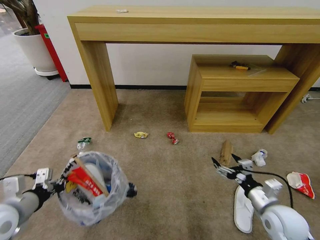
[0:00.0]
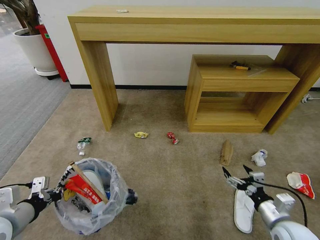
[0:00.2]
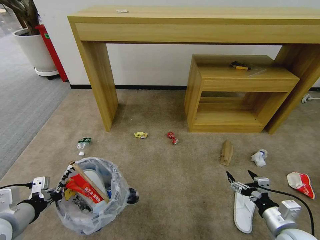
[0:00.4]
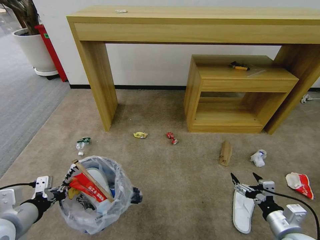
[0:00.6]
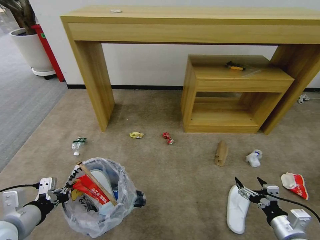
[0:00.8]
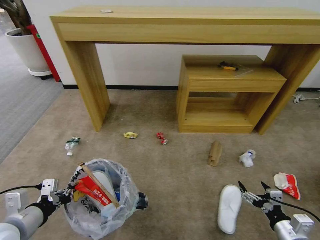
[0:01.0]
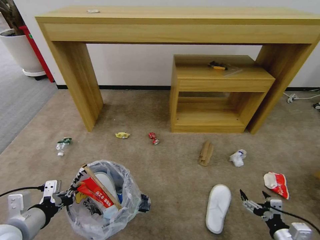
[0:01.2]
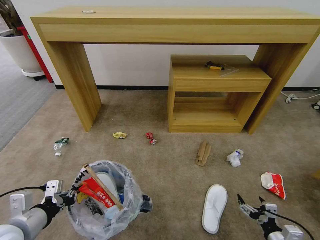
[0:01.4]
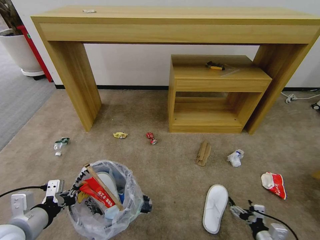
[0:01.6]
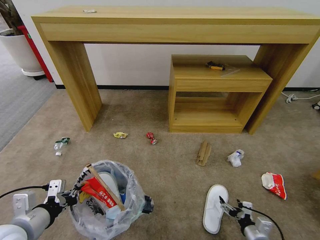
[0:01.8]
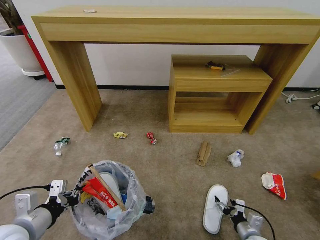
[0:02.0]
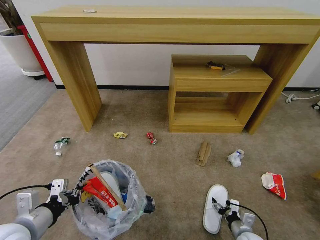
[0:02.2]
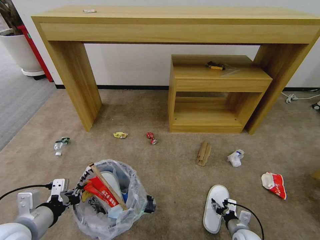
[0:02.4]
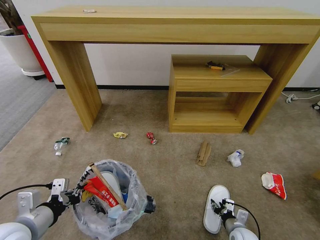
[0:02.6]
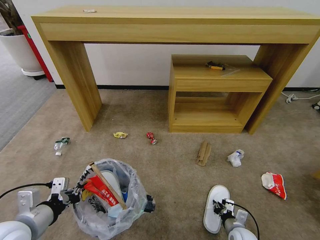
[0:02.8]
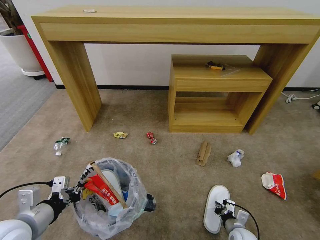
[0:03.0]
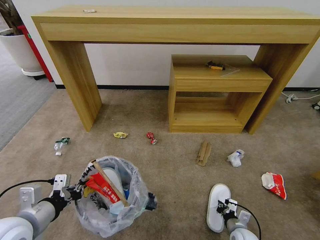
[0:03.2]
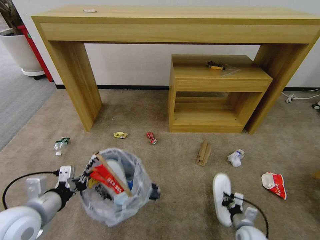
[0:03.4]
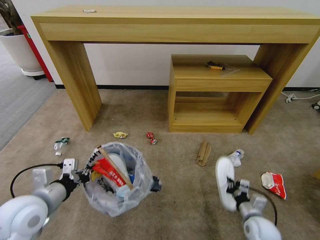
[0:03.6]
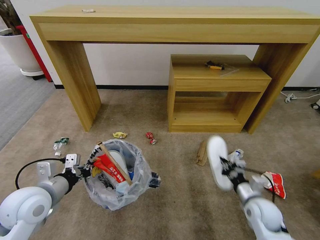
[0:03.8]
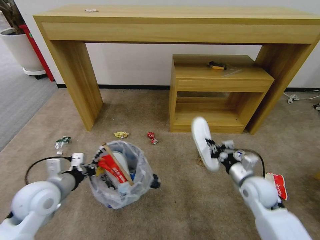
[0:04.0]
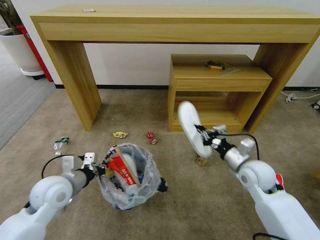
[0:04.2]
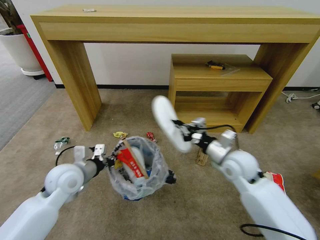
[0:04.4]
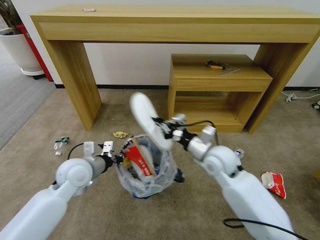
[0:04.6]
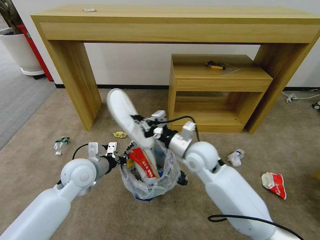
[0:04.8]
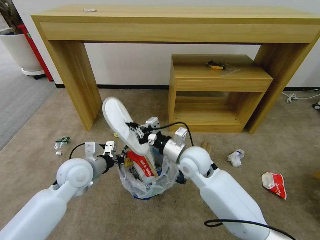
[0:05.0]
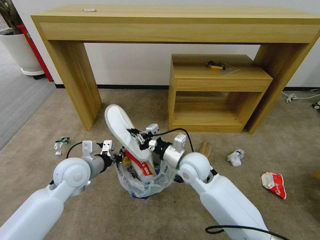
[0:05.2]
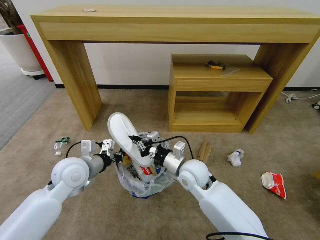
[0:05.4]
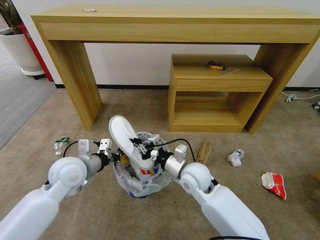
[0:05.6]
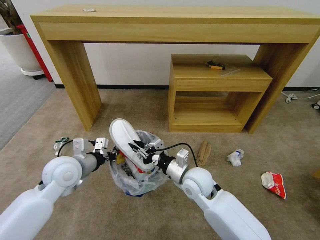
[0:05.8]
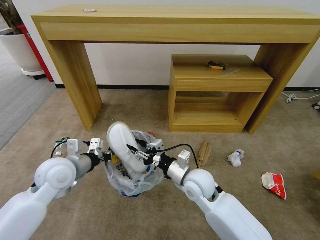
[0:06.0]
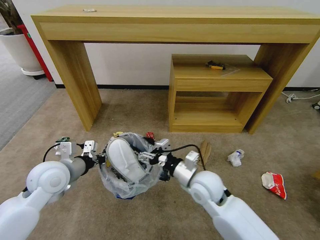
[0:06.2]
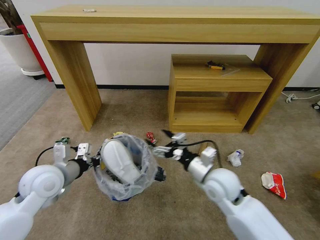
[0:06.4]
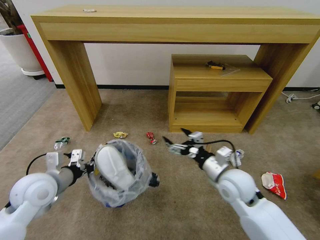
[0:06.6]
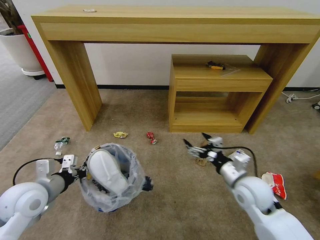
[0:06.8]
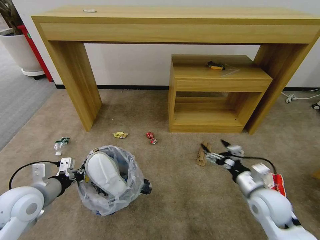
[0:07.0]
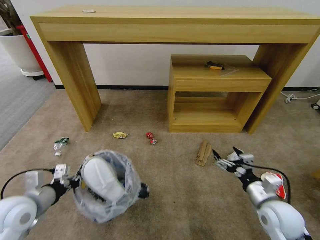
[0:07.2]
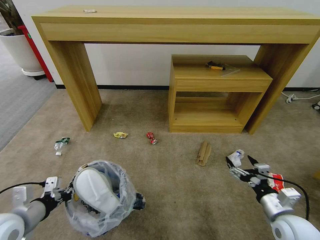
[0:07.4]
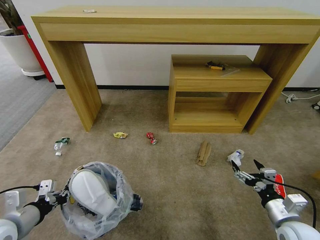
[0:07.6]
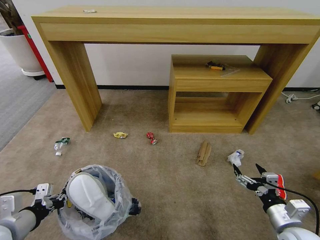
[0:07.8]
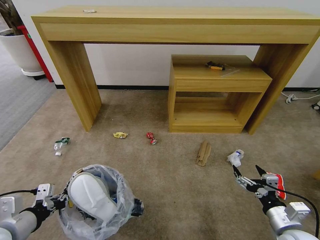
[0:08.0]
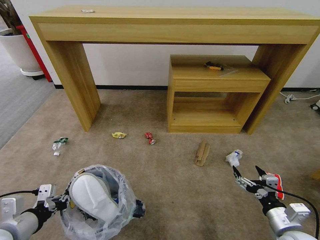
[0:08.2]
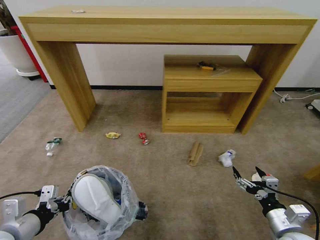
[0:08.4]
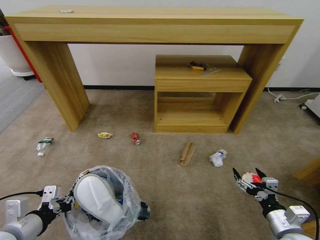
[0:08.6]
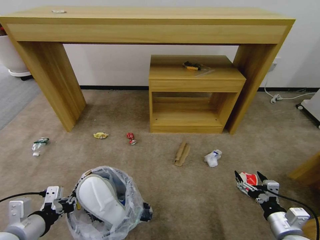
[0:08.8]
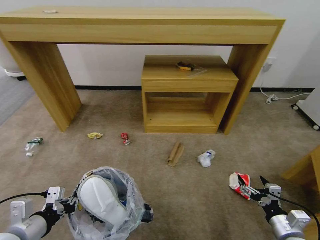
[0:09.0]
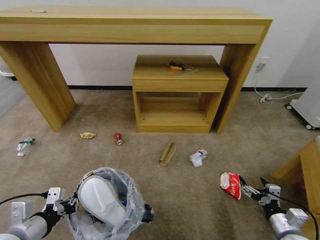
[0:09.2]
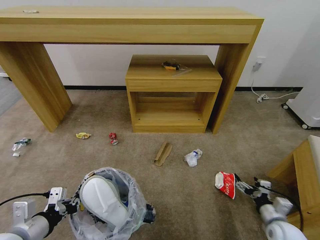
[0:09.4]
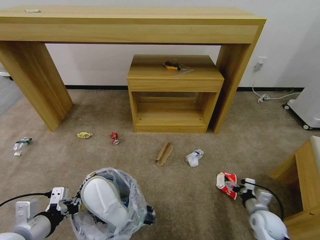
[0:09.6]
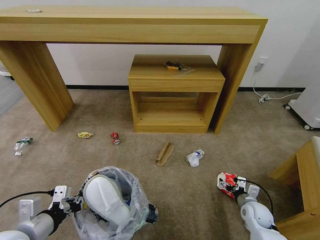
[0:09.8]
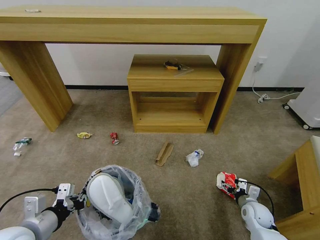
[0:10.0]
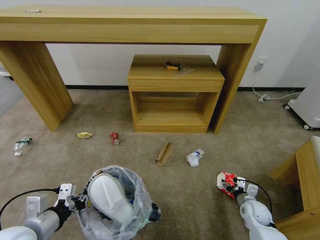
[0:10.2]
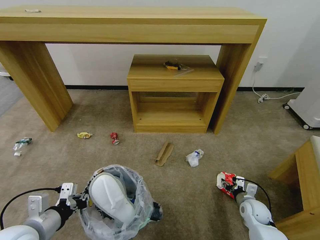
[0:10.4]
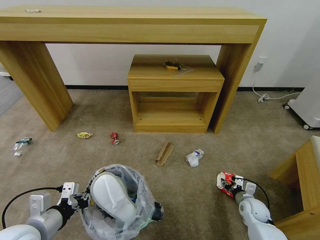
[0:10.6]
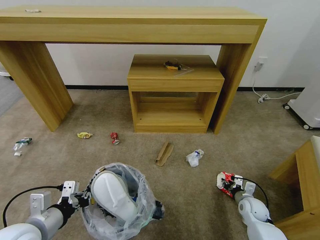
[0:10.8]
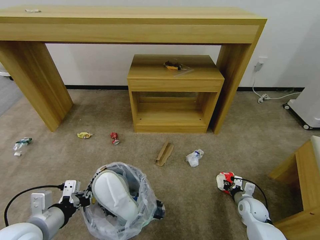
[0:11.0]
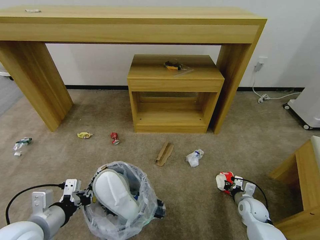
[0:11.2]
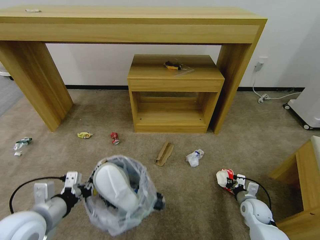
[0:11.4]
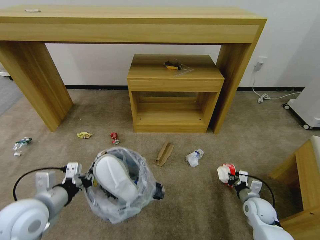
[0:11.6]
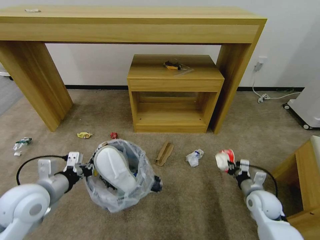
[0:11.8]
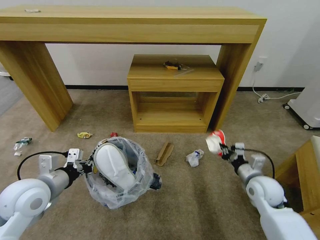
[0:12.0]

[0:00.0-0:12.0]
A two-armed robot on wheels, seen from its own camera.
Task of the whole recording: Pick up the trash bin and place the garbage on the floor into it.
0:00.0 to 0:01.6: The right gripper shifts some 15 cm downward and backward. Meanwhile the left gripper ends up roughly 5 cm from where it was.
0:01.6 to 0:03.0: The right gripper heads forward, to the left and downward, covering approximately 10 cm, and closes.
0:03.0 to 0:04.4: The right gripper goes approximately 30 cm upward and forward, while the left gripper heads forward, covering about 15 cm.
0:04.4 to 0:06.0: The right gripper shifts some 15 cm to the left, and opens up.
0:06.0 to 0:07.6: The right gripper travels to the right and backward by about 30 cm, and opens up; the left gripper shifts roughly 20 cm backward and to the left.
0:07.6 to 0:09.0: The right gripper changes place by approximately 5 cm. Meanwhile the left gripper shifts by roughly 5 cm.
0:09.0 to 0:10.4: The right gripper goes roughly 20 cm forward and downward, and closes up.
0:10.4 to 0:12.0: The right gripper is displaced upward by approximately 15 cm, and closes; the left gripper moves forward, roughly 10 cm.

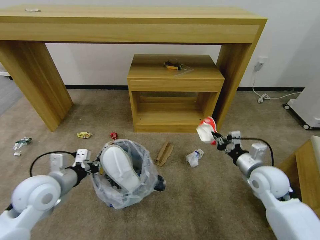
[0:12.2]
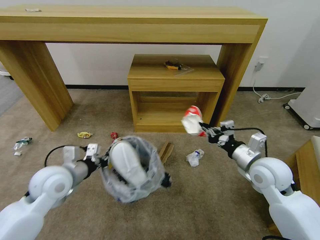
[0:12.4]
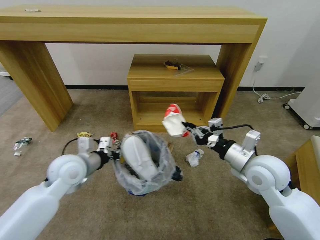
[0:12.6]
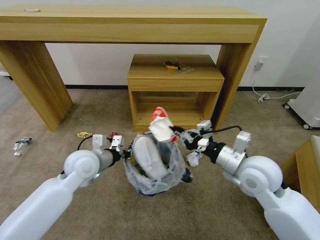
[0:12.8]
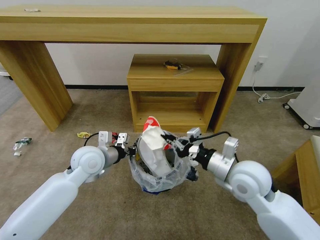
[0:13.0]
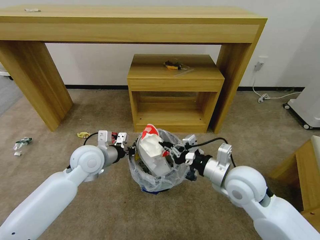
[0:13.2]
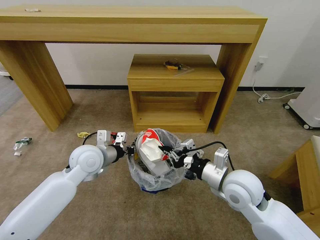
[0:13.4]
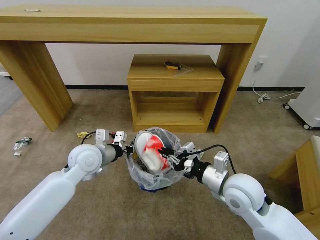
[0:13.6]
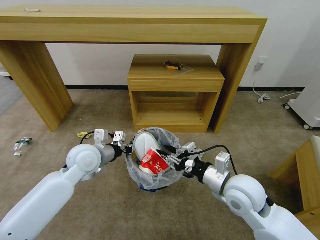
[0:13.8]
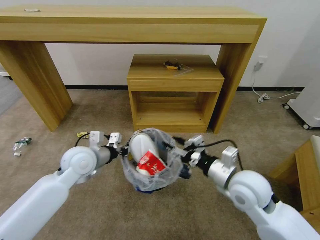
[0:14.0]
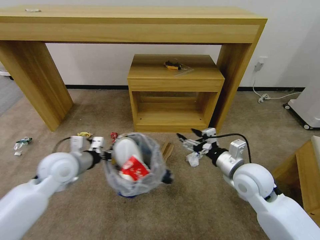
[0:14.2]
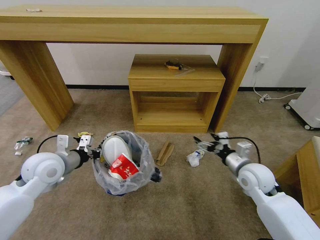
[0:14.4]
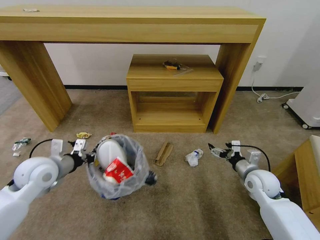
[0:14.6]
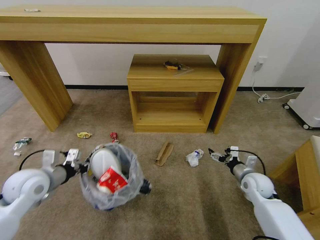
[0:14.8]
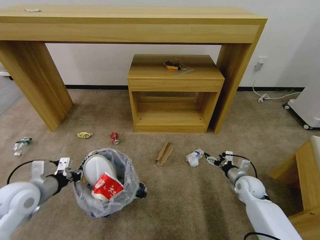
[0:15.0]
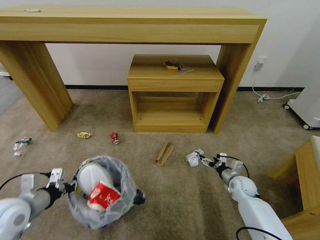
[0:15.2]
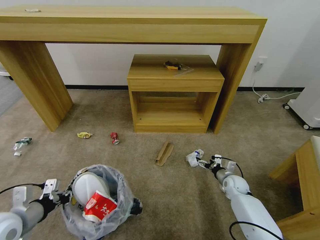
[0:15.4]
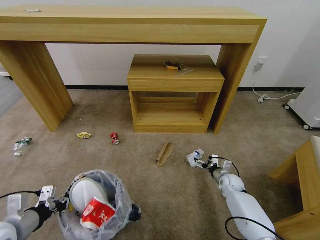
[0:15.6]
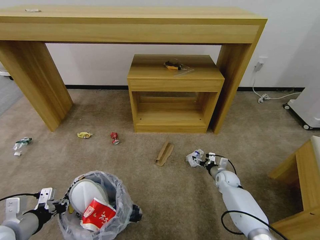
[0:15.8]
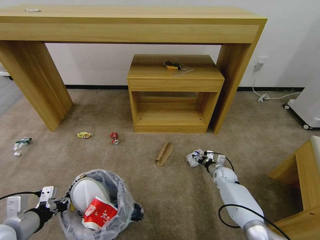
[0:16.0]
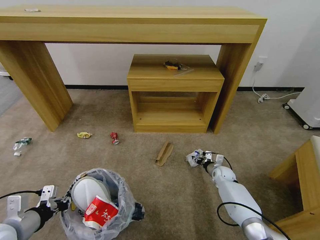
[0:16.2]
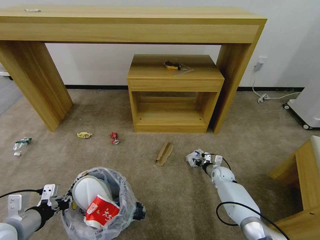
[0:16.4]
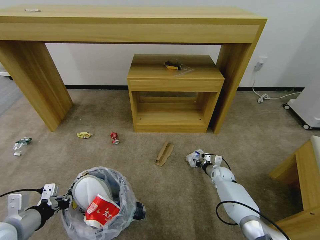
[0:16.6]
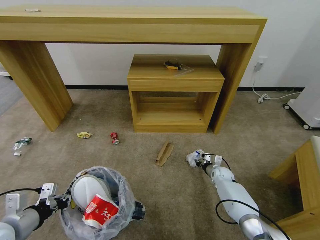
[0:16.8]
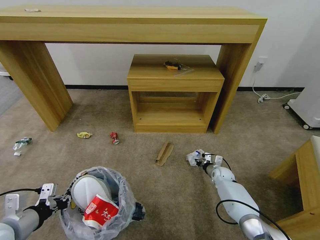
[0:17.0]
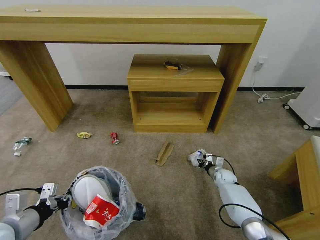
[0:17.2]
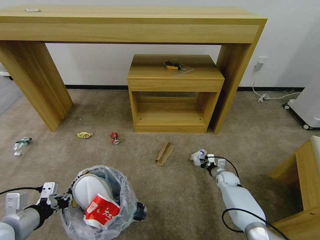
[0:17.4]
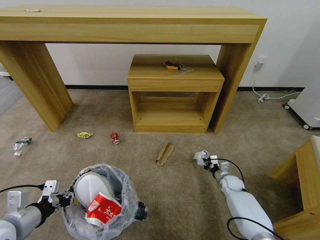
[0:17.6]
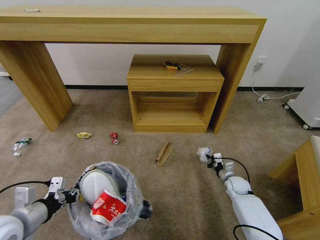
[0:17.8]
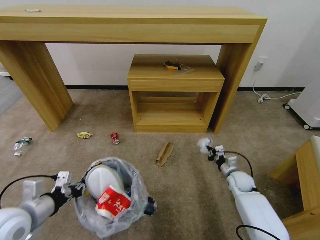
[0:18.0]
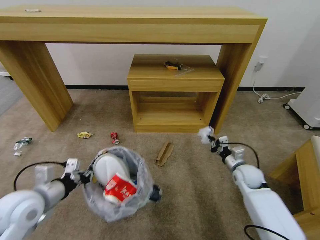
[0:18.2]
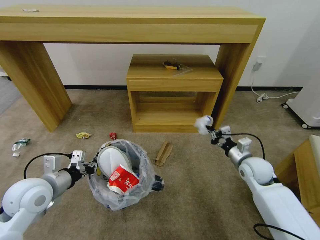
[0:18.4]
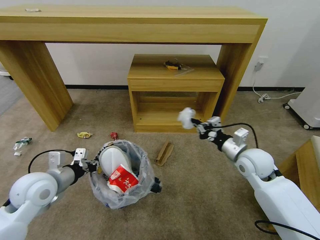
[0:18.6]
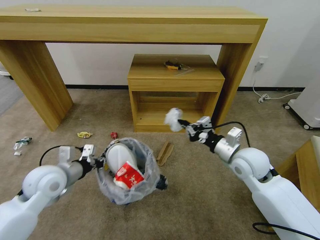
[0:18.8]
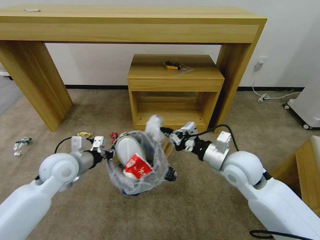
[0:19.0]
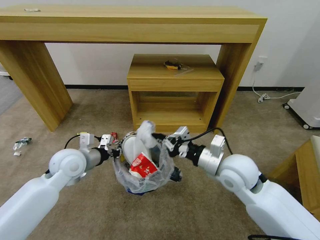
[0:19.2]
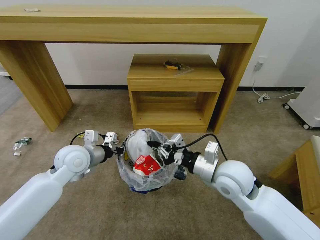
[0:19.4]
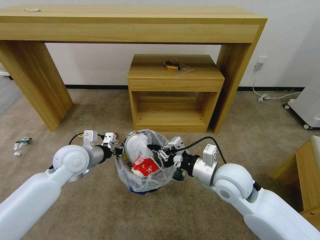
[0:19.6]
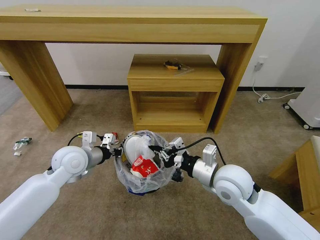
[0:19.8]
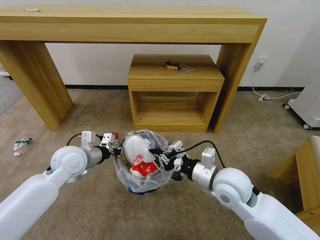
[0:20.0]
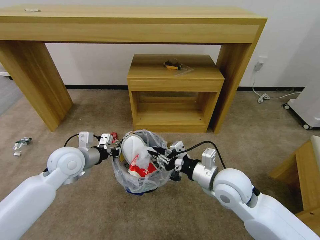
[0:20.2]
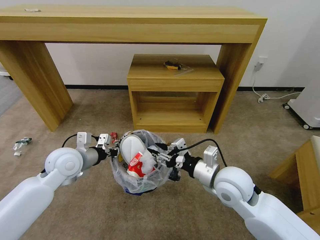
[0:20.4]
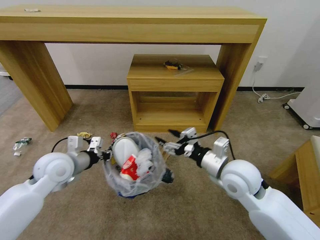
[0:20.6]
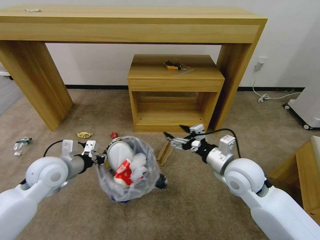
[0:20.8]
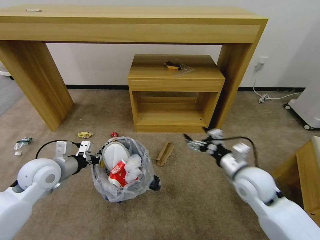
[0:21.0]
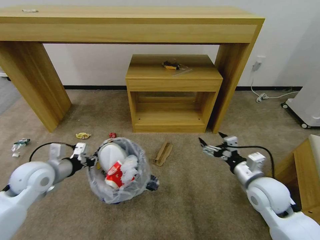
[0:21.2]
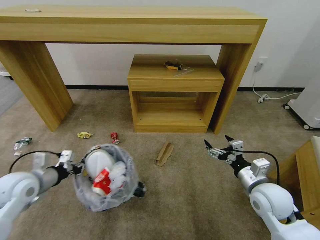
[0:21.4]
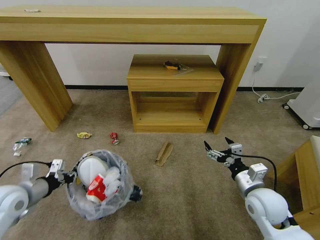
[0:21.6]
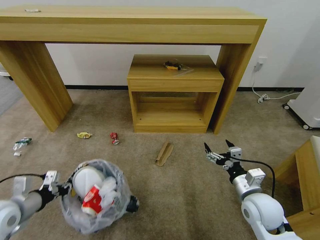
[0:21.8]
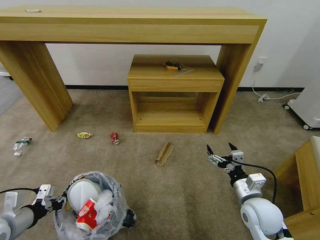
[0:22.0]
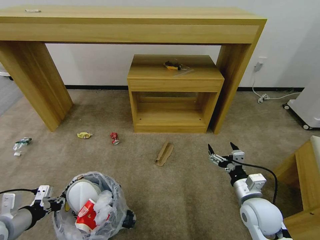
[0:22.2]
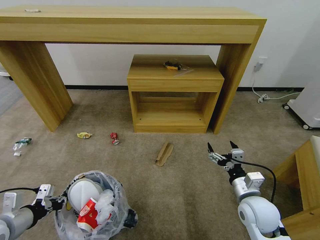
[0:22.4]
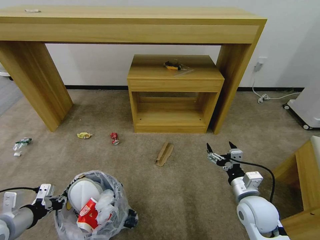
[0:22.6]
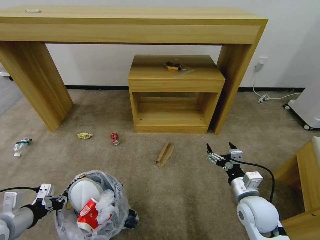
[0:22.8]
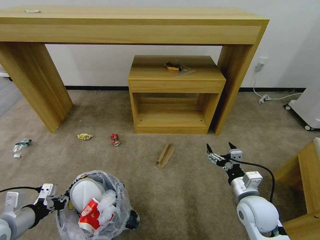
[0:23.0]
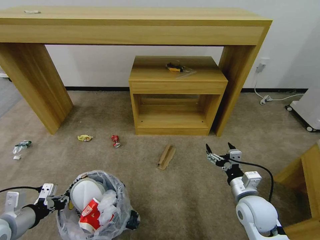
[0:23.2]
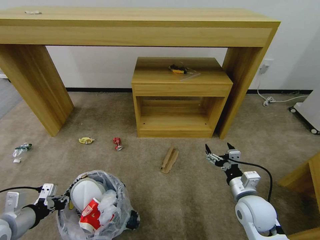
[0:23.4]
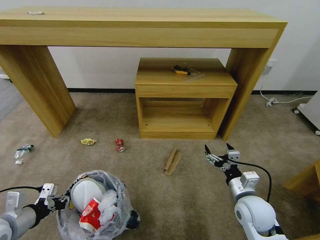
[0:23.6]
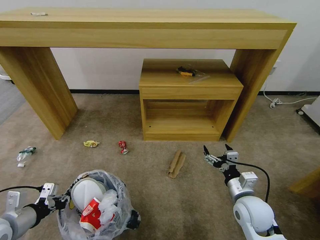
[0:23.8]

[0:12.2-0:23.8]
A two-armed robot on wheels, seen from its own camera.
Task of the whole recording: Pick up the trash bin and place the garbage on the floor into it.
0:12.2 to 0:13.6: The right gripper shifts about 10 cm to the left. Meanwhile the left gripper shifts about 15 cm forward and to the right.
0:13.6 to 0:15.0: The right gripper is displaced downward, to the right and forward by roughly 25 cm, and opens, while the left gripper moves to the left and backward, approximately 20 cm.
0:15.0 to 0:16.6: The right gripper travels forward, downward and to the left by approximately 15 cm, and closes up; the left gripper is displaced backward by approximately 10 cm.
0:16.6 to 0:18.0: The right gripper travels upward and backward by roughly 10 cm.
0:18.0 to 0:19.4: The left gripper heads forward and to the right, covering about 20 cm. The right gripper is displaced upward, to the left and backward by roughly 30 cm.
0:19.4 to 0:21.0: The right gripper shifts roughly 5 cm to the right, and opens; the left gripper goes about 5 cm to the left.
0:21.0 to 0:22.4: The left gripper goes approximately 15 cm backward and to the left; the right gripper moves downward and backward, some 10 cm.
